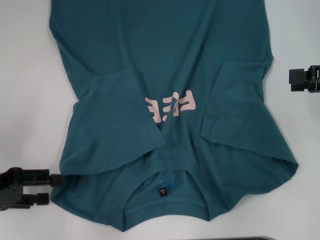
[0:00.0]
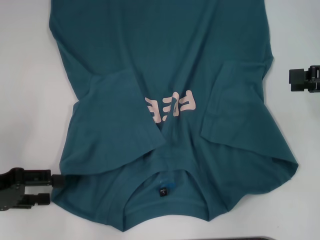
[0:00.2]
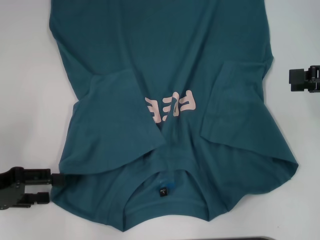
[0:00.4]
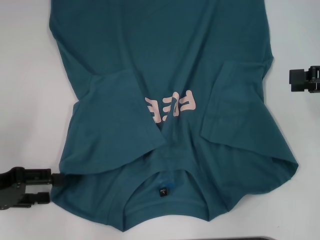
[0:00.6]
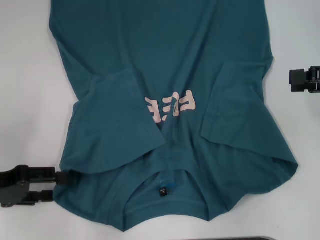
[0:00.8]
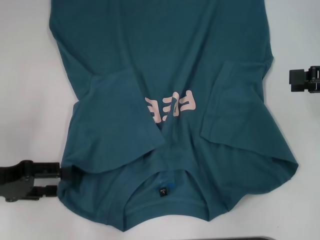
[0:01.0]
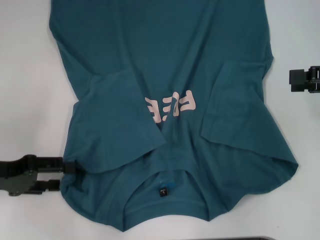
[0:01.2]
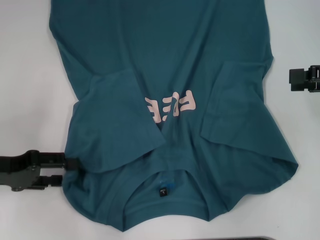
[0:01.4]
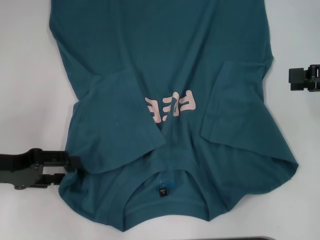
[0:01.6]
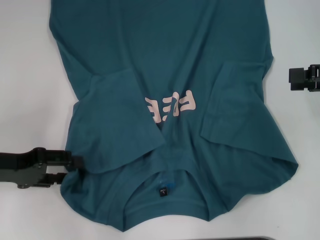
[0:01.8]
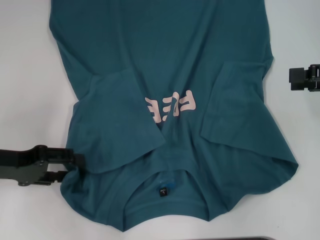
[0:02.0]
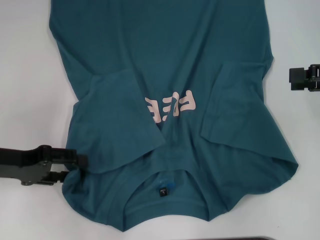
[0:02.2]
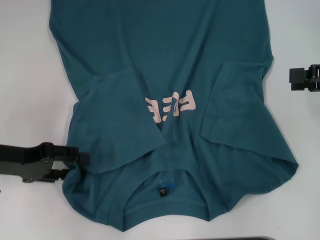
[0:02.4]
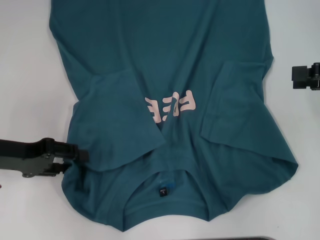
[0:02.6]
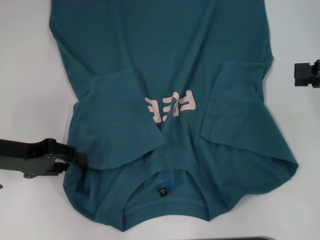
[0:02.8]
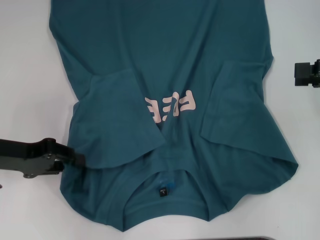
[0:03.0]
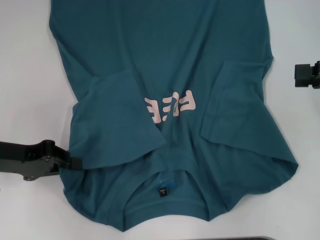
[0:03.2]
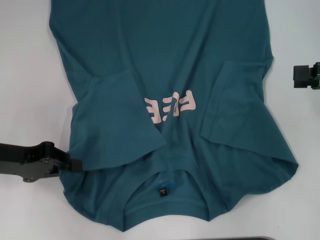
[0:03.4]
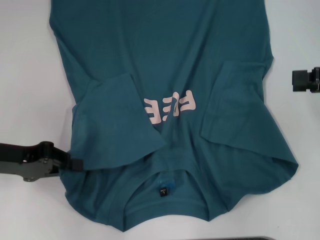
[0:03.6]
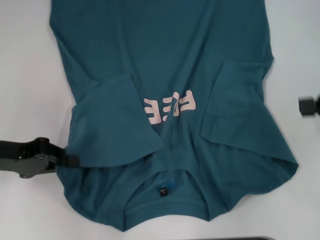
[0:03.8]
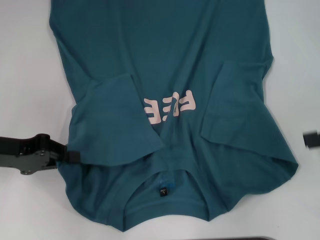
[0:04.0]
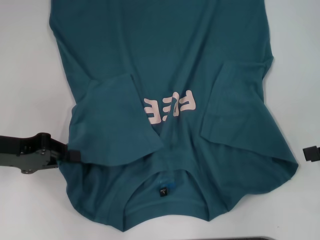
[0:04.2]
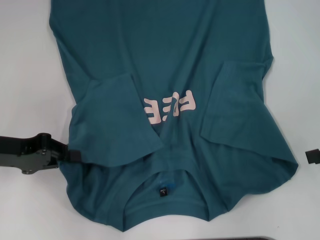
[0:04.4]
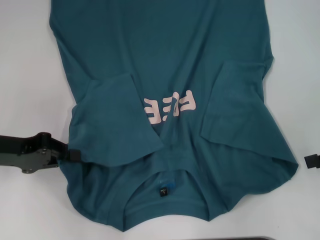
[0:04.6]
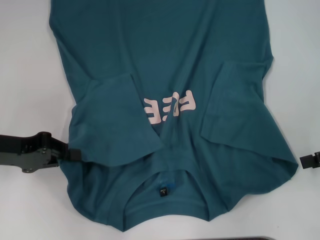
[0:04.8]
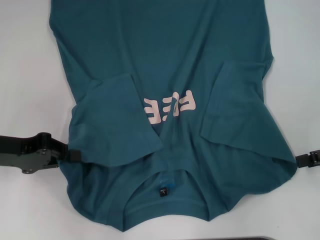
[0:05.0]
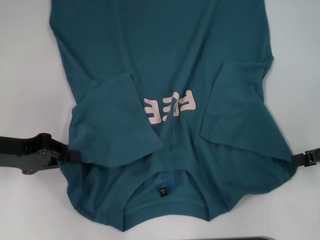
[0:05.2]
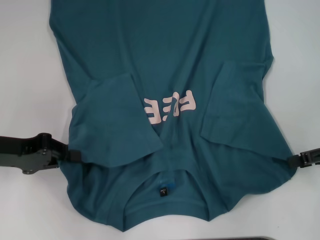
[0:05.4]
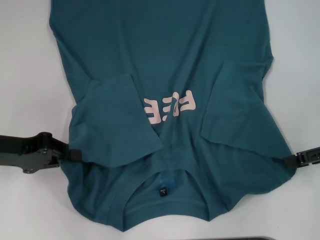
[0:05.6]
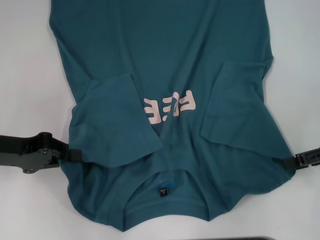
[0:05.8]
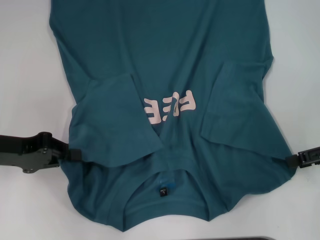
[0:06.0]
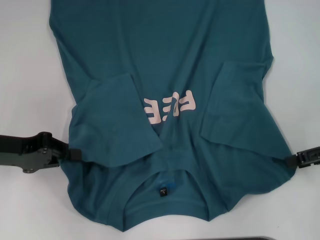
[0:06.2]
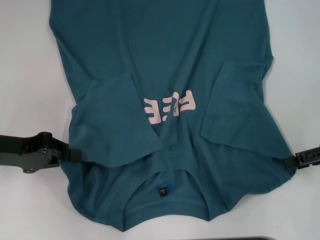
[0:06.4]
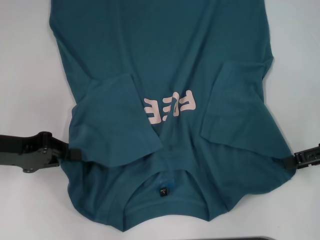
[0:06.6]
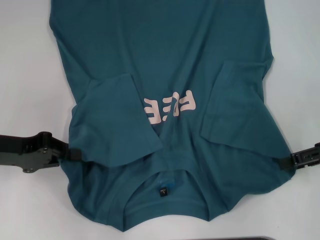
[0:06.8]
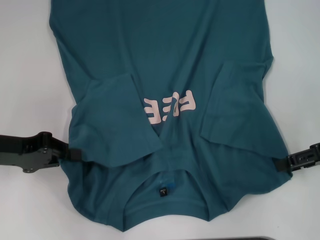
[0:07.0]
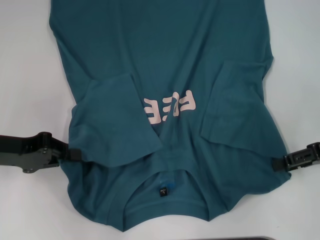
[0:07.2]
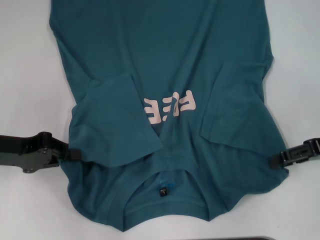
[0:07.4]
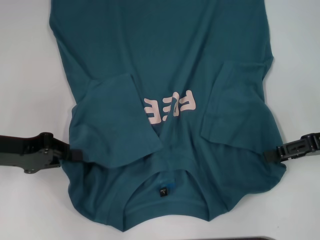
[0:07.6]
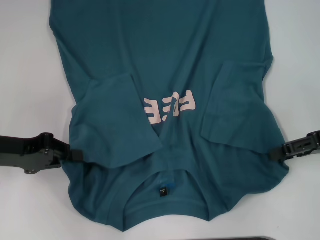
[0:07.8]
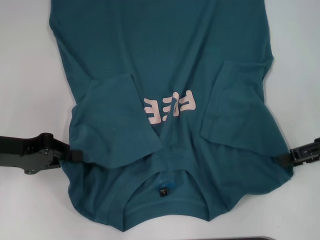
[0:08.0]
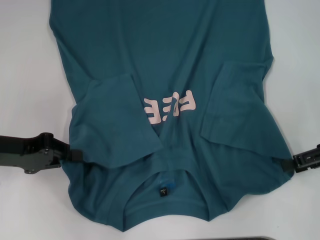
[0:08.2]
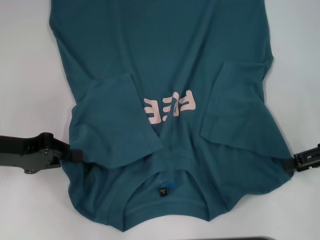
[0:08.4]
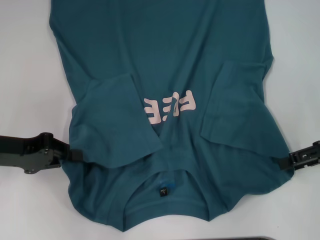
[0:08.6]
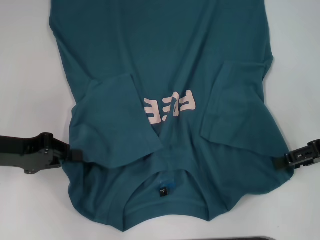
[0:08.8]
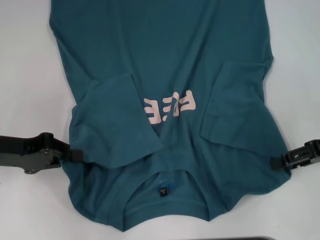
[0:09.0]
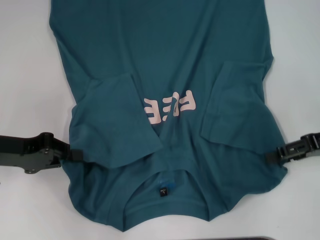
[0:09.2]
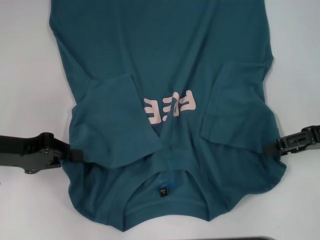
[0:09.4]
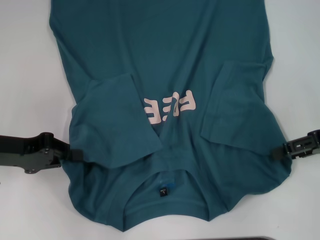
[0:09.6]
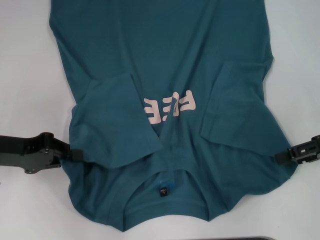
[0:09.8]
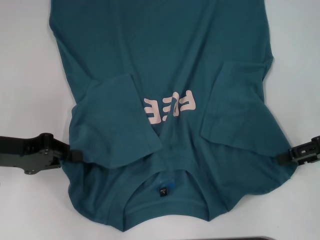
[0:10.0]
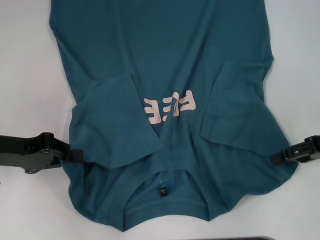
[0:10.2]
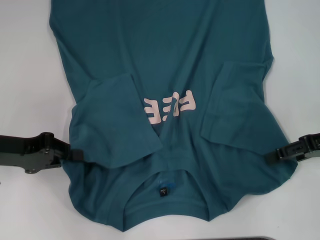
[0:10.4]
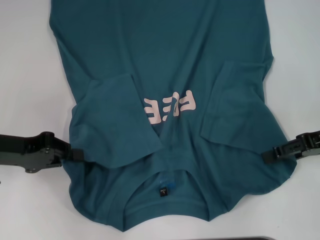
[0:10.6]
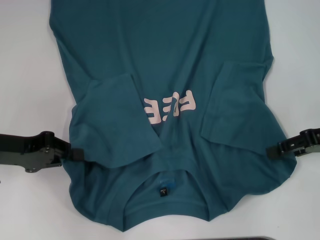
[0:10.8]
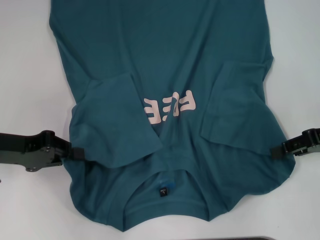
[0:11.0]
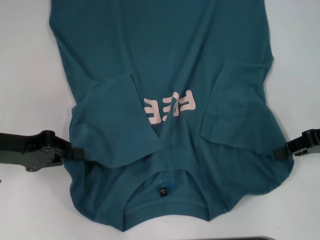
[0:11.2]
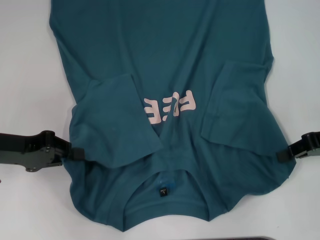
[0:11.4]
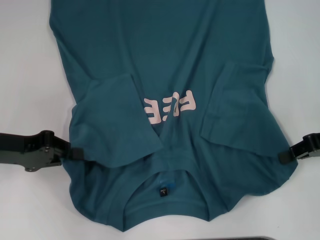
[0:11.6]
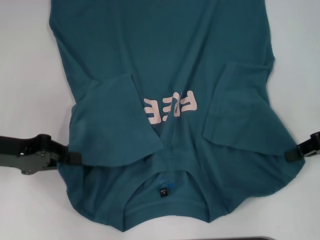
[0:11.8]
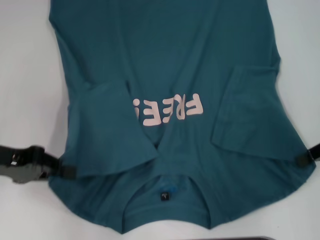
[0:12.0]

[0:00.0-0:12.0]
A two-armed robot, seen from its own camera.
Step, 0:00.0 to 0:03.6: Grab the bottom left corner with your left hand.
Step, 0:03.8 to 0:11.6: Grab the bottom right corner with your right hand.
0:00.0 to 0:01.6: The grippers move only a little.
0:01.6 to 0:03.0: The grippers move only a little.
0:03.0 to 0:04.4: The right gripper moves approximately 5 cm; the left gripper closes its fingers.
0:04.4 to 0:09.0: There are only small adjustments of the grippers.
0:09.0 to 0:10.4: There are only small adjustments of the grippers.
0:10.4 to 0:12.0: The right gripper closes.

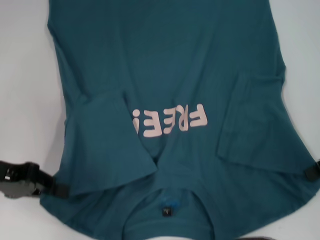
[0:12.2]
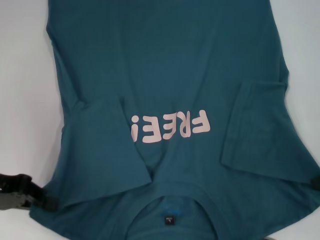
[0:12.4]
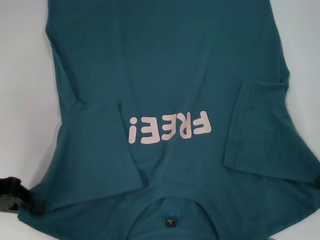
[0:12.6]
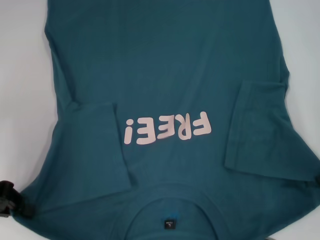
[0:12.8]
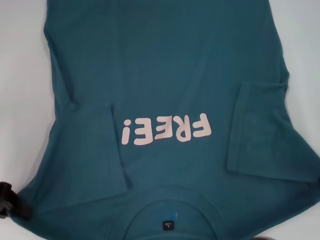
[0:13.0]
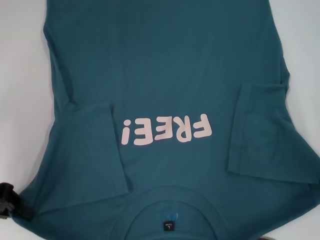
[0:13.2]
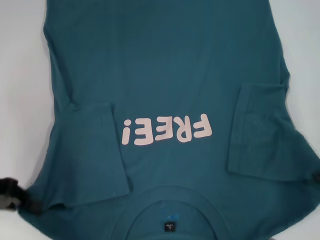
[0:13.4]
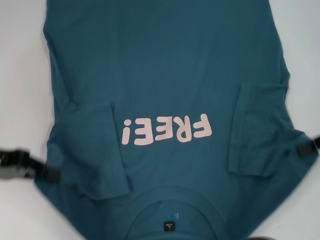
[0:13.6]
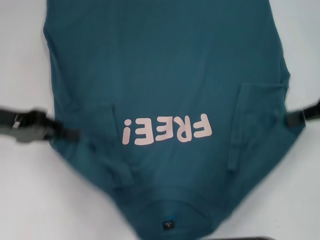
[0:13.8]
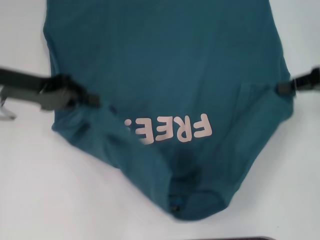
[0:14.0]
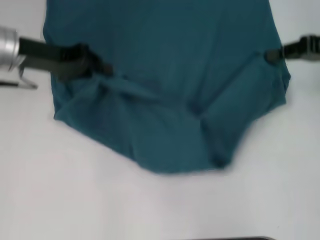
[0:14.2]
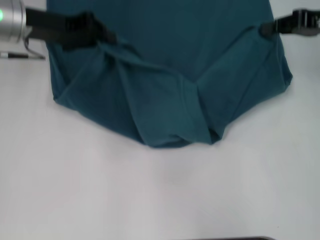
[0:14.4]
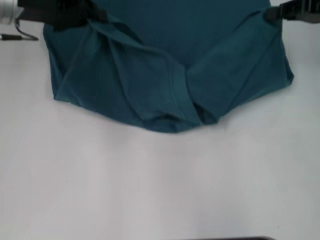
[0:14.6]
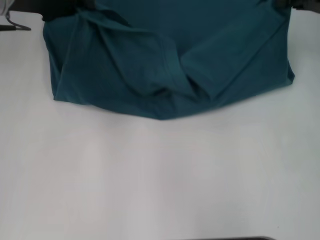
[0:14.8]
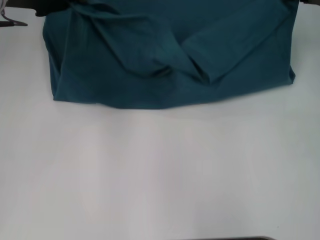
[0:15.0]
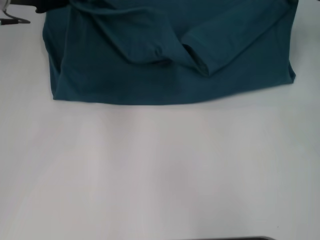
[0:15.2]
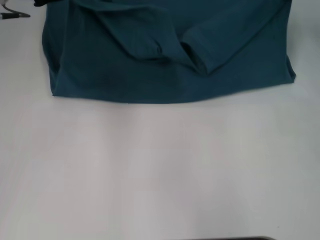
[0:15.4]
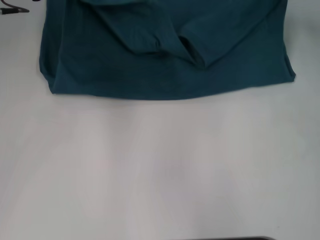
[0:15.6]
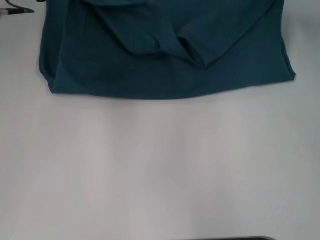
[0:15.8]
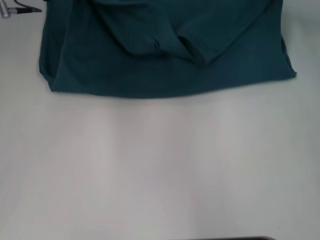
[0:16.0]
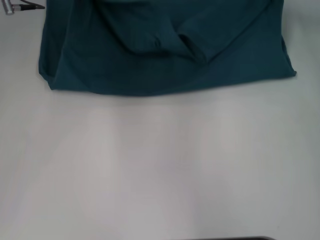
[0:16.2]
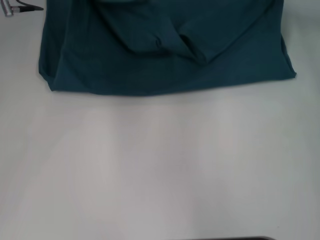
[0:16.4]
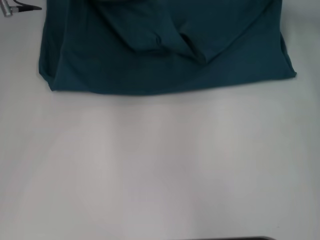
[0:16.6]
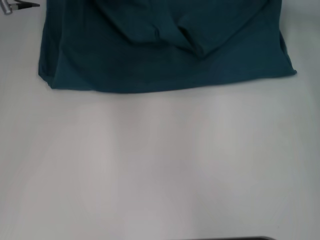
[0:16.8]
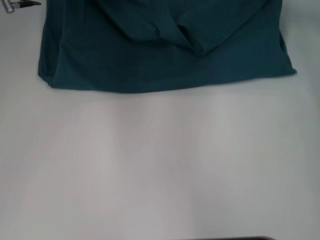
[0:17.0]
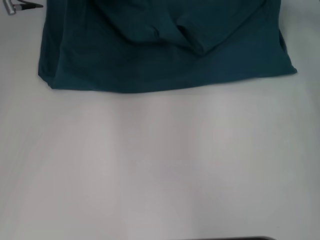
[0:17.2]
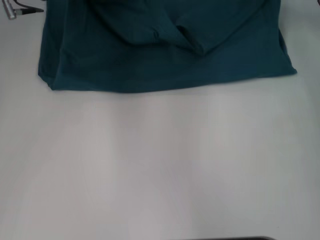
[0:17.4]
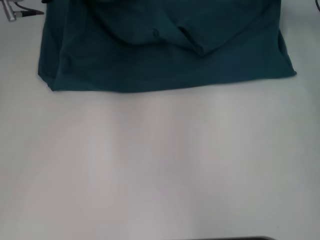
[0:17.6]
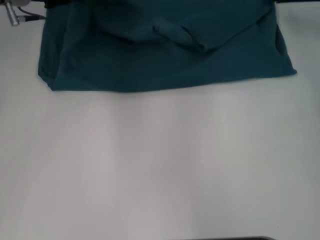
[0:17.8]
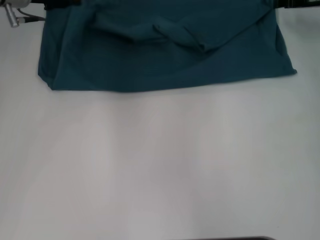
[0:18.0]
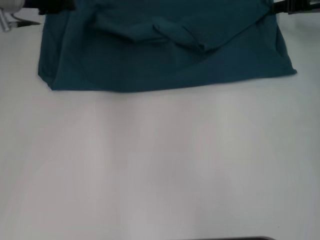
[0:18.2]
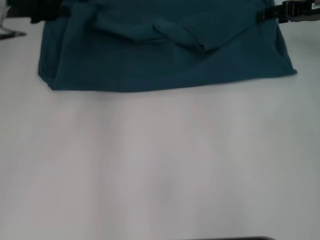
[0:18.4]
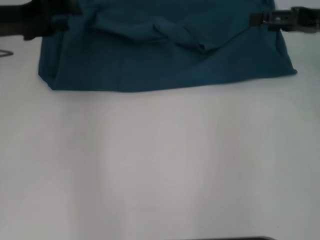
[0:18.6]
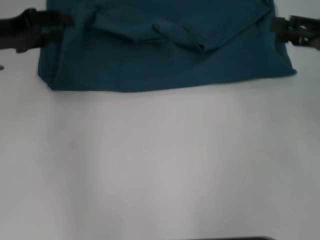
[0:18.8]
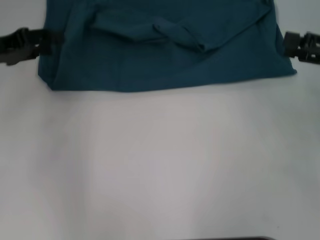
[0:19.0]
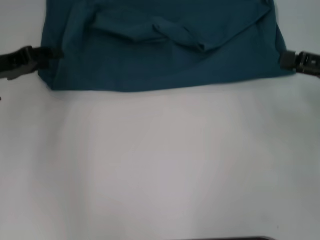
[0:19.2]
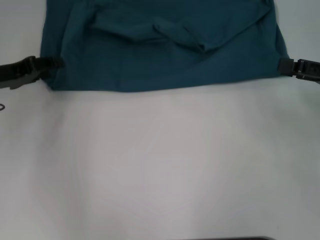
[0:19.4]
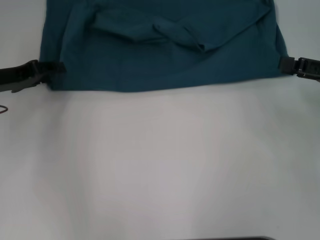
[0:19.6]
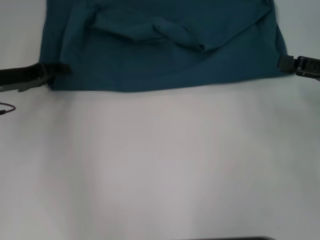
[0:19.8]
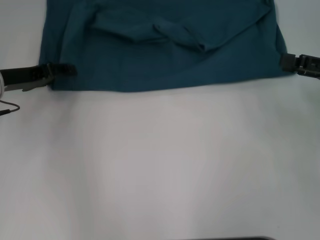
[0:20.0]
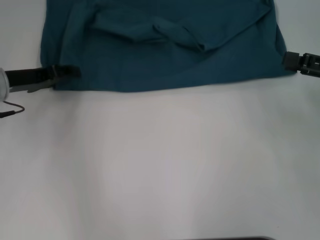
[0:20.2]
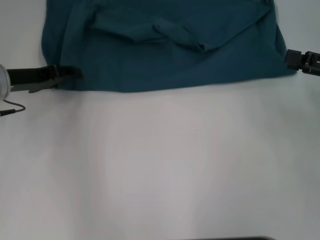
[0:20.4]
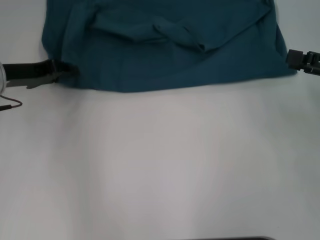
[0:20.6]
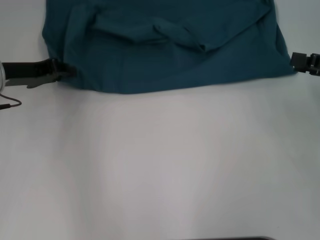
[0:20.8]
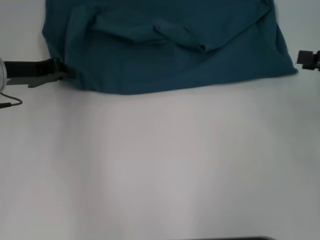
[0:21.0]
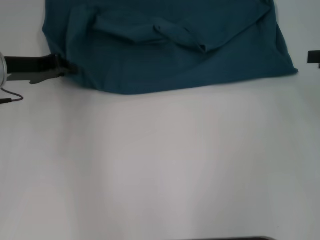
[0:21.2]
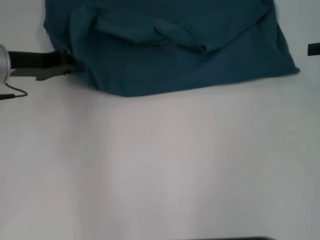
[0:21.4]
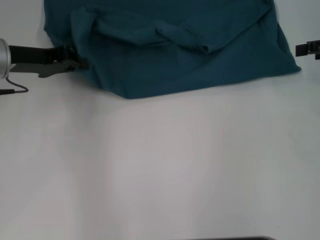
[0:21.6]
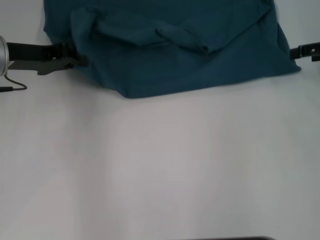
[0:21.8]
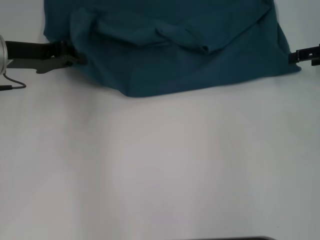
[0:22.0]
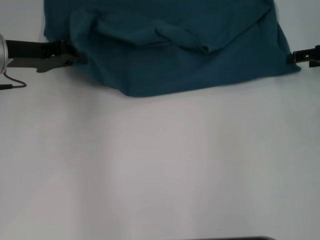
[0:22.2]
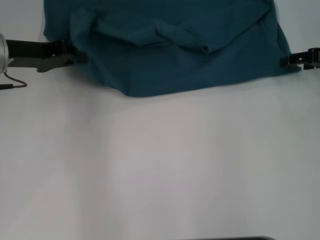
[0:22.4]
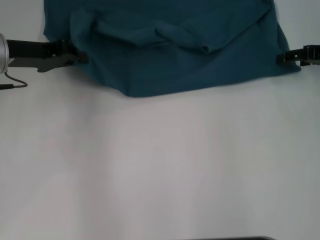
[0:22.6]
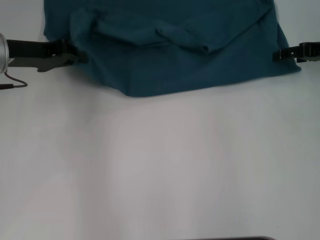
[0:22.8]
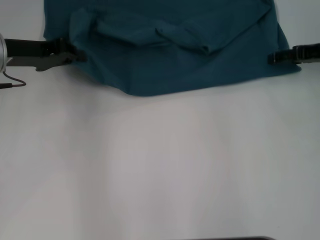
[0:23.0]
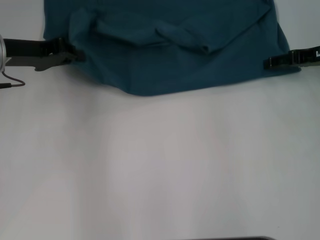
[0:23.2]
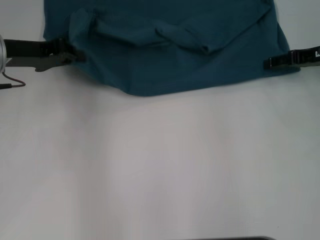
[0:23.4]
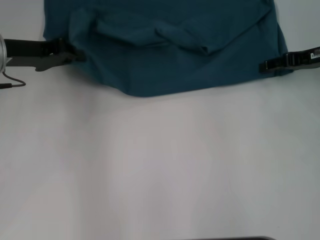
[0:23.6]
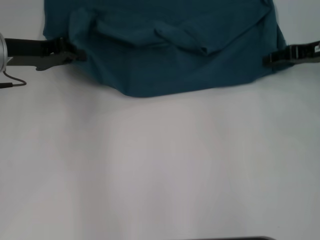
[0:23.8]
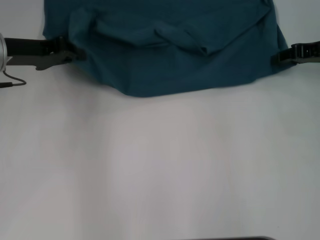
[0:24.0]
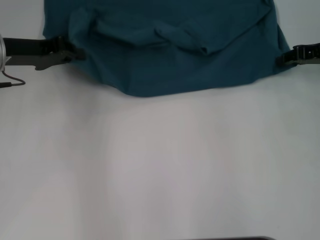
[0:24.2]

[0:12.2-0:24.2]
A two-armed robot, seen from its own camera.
Step, 0:12.2 to 0:18.0: Fold the clothes to the left.
Step, 0:12.2 to 0:18.0: Fold the clothes to the right.
0:12.2 to 0:13.8: The left gripper ends up some 5 cm from where it was.
0:13.8 to 0:15.2: The grippers both shift forward by some 10 cm.
0:15.2 to 0:16.6: The right gripper ends up roughly 5 cm from where it was.
0:16.6 to 0:18.2: The right gripper opens, while the left gripper opens up.
0:18.2 to 0:19.8: The left gripper travels backward, downward and to the left by some 15 cm. Meanwhile the right gripper moves backward, about 15 cm, and opens its fingers.
0:19.8 to 0:21.2: The right gripper ends up about 5 cm from where it was; the left gripper closes its fingers.
0:21.2 to 0:22.6: The right gripper is displaced forward by approximately 5 cm.
0:22.6 to 0:24.2: The right gripper closes up.
